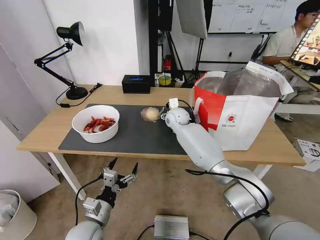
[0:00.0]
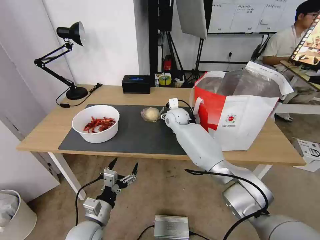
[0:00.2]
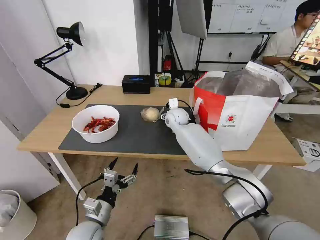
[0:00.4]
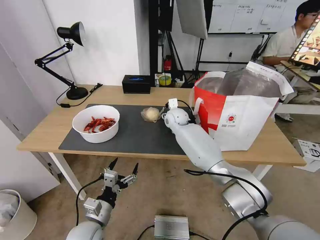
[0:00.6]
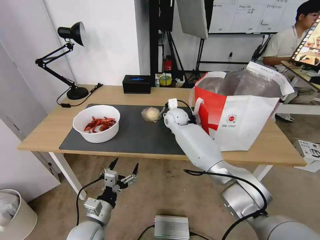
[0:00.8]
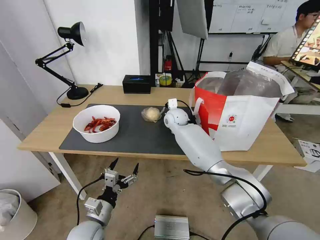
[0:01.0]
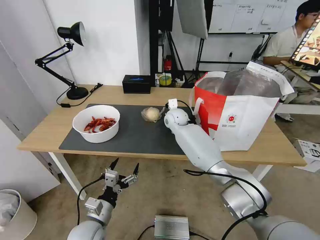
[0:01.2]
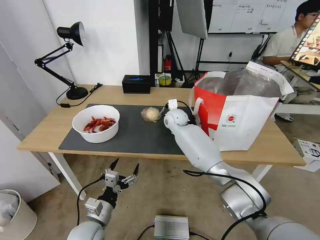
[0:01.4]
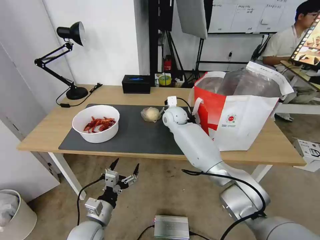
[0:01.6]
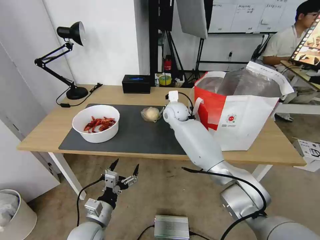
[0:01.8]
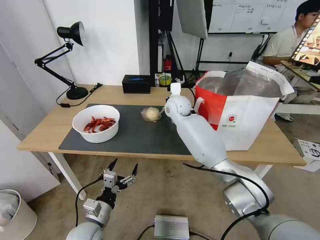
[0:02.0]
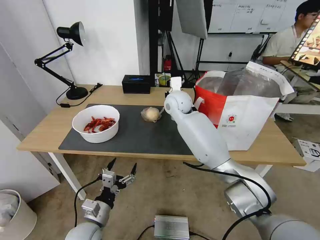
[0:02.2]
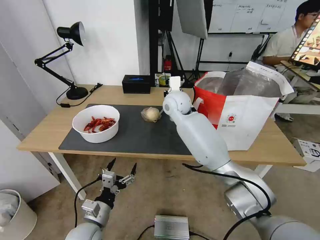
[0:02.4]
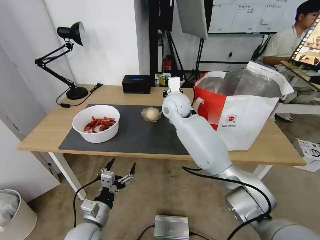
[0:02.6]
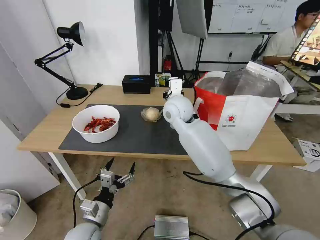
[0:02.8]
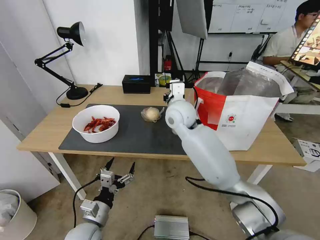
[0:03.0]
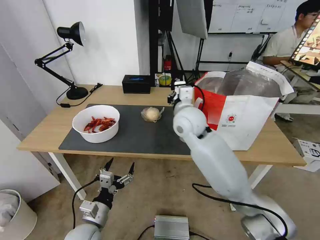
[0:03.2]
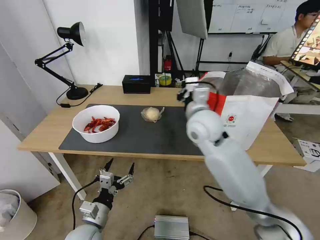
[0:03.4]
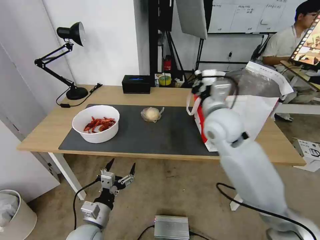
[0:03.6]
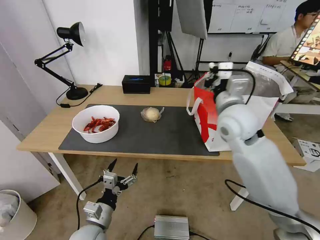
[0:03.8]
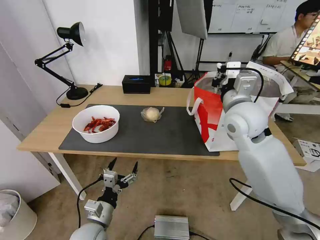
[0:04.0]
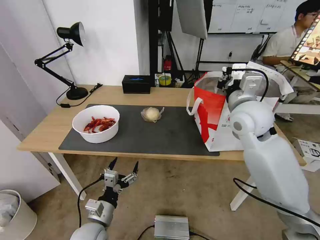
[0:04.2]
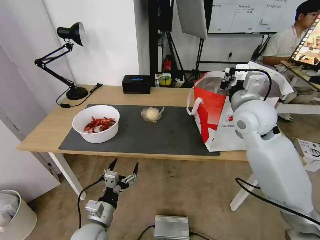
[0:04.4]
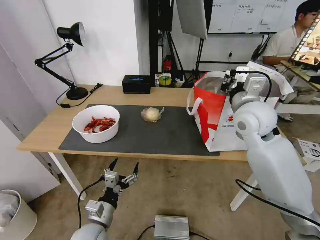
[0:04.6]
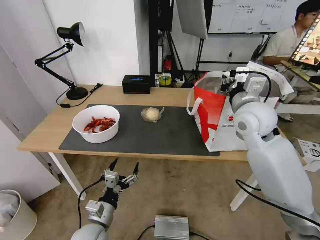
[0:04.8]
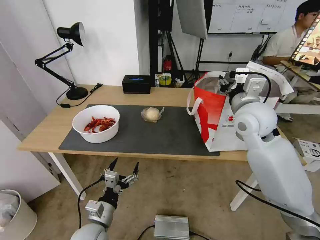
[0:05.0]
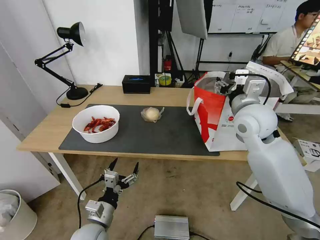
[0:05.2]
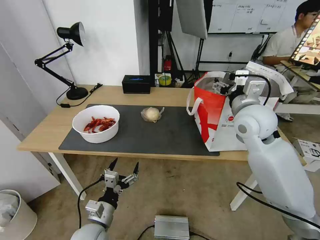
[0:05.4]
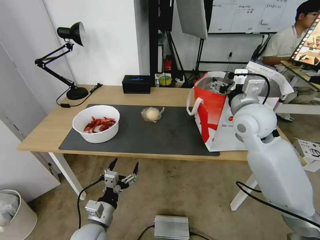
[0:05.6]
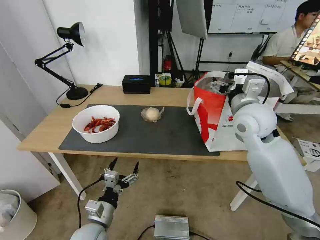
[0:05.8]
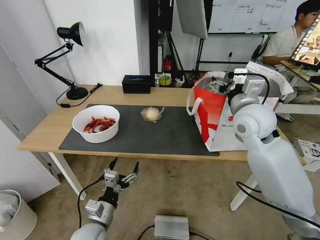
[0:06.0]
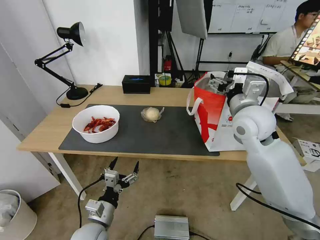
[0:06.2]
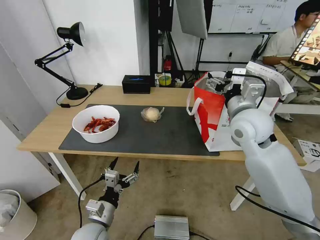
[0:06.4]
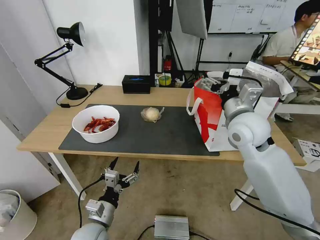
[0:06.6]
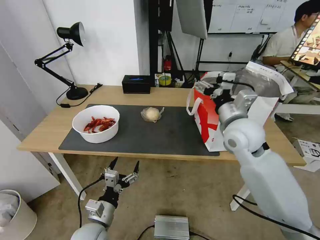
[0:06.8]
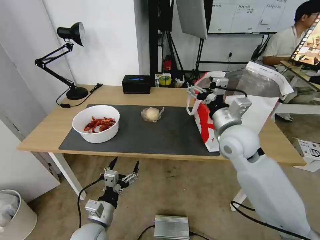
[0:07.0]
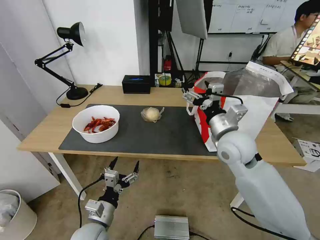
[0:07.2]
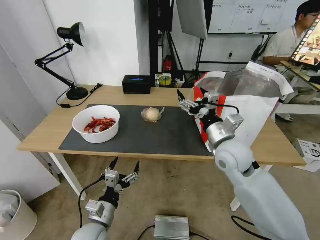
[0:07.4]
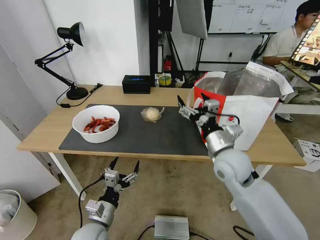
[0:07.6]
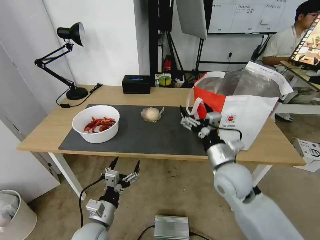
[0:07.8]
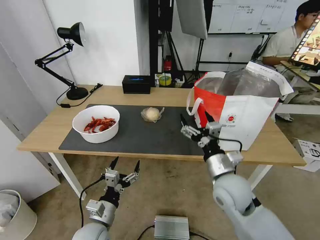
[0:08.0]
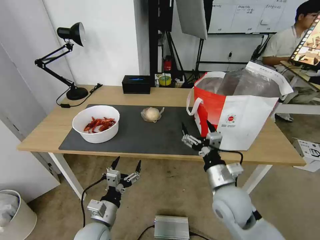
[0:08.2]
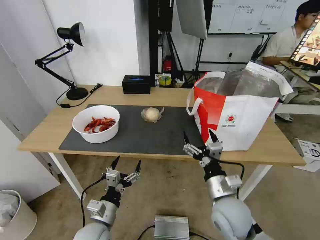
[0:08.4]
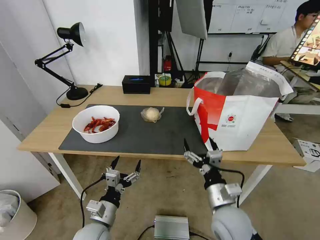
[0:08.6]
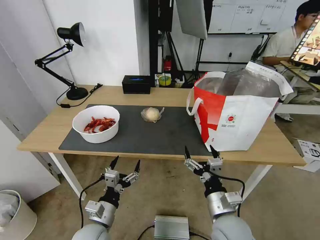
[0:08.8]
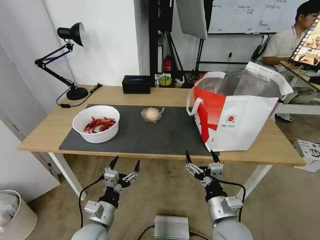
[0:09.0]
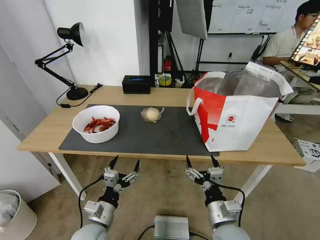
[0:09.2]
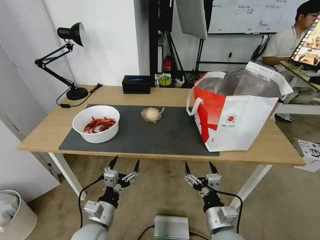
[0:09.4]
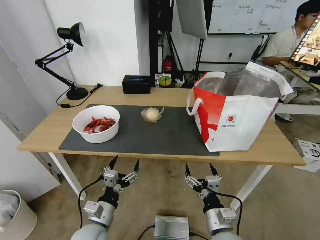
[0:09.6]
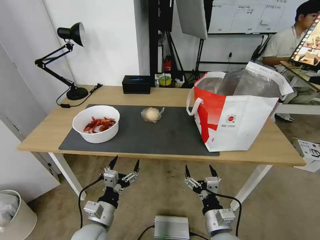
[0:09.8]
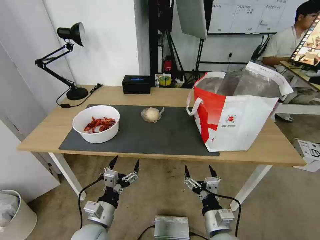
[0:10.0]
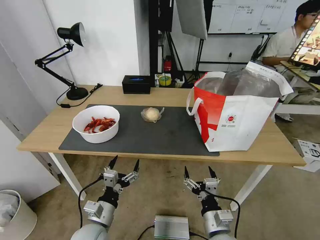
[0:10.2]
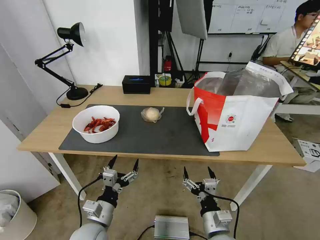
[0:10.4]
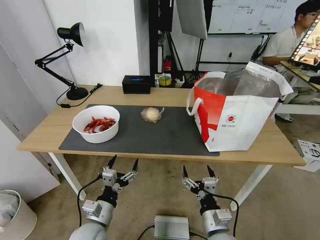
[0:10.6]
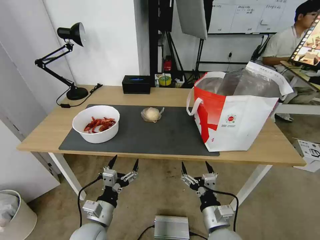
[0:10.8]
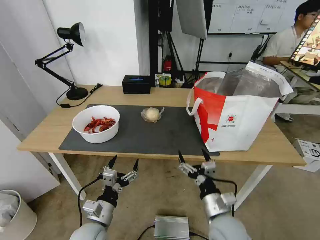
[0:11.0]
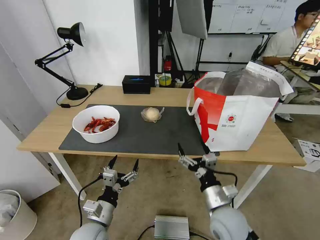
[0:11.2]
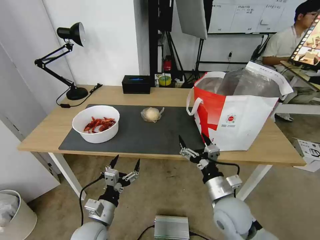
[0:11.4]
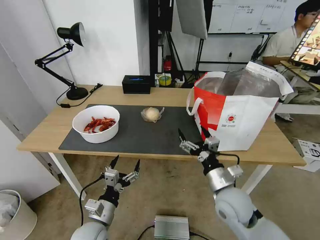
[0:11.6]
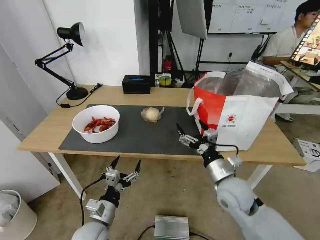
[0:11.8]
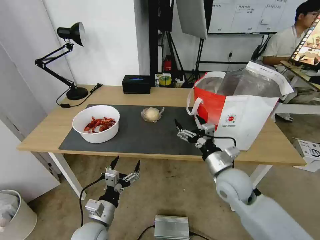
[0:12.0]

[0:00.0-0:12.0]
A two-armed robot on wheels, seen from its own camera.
Task of the whole recording: Pick up the trash from the table and place it into the takeout bag.
0:00.0 to 0:01.6: The right gripper closes.
0:01.6 to 0:03.0: The right gripper shifts approximately 15 cm backward and upward.
0:03.0 to 0:04.4: The right gripper shifts some 20 cm to the right.
0:04.4 to 0:06.0: The right gripper opens up.
0:06.0 to 0:07.6: The right gripper heads downward and backward, covering some 10 cm.
0:07.6 to 0:09.0: The right gripper moves backward and downward, some 20 cm.
0:09.0 to 0:10.4: The right gripper ends up about 5 cm from where it was.
0:10.4 to 0:12.0: The right gripper travels forward and upward by roughly 20 cm.

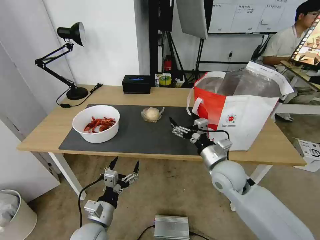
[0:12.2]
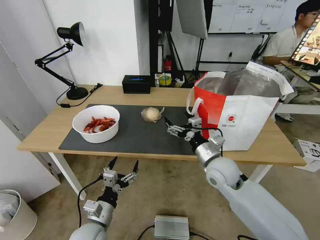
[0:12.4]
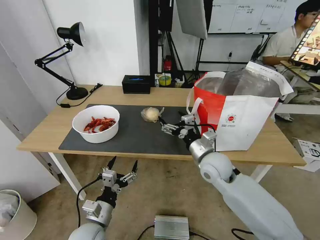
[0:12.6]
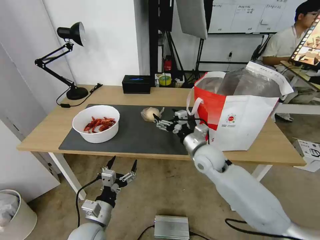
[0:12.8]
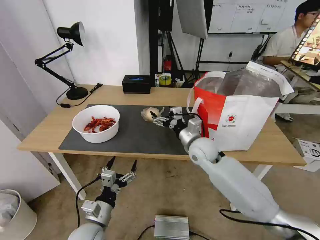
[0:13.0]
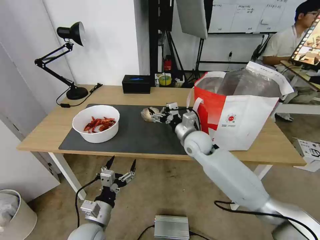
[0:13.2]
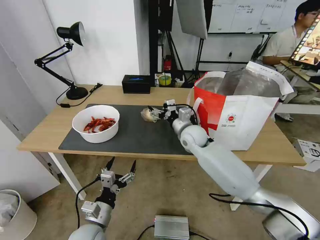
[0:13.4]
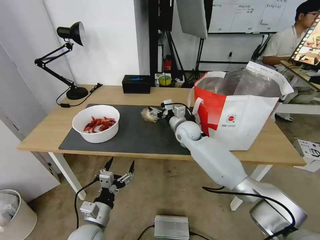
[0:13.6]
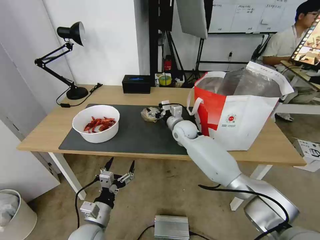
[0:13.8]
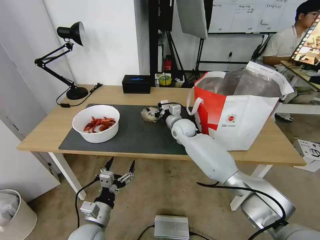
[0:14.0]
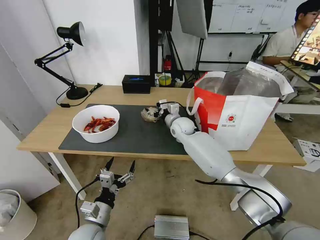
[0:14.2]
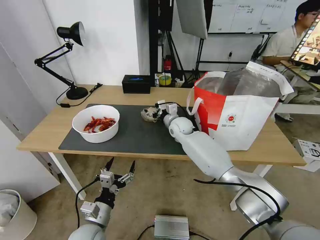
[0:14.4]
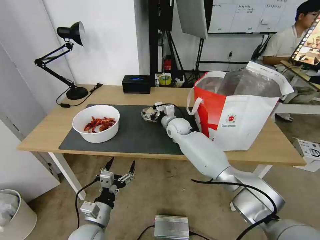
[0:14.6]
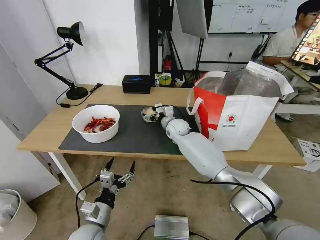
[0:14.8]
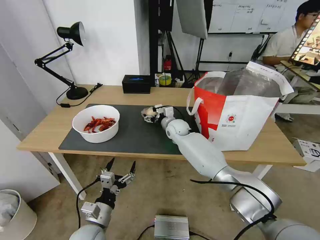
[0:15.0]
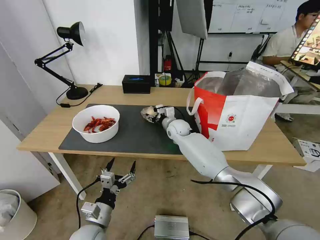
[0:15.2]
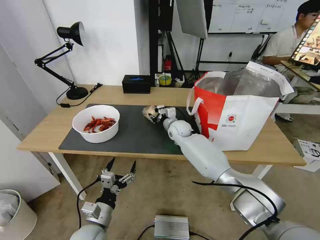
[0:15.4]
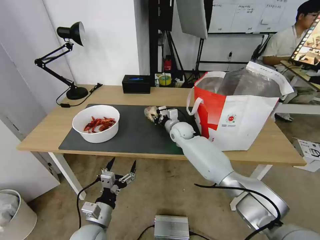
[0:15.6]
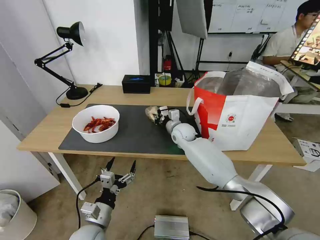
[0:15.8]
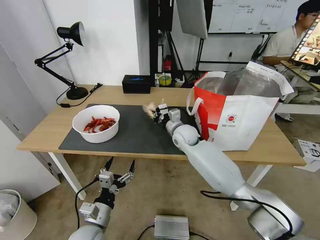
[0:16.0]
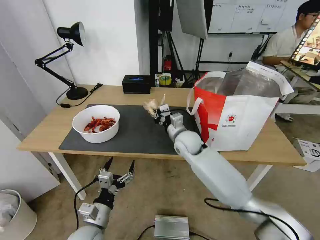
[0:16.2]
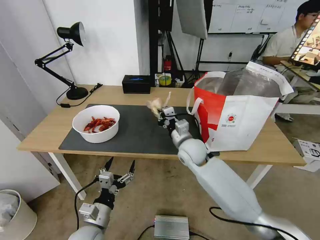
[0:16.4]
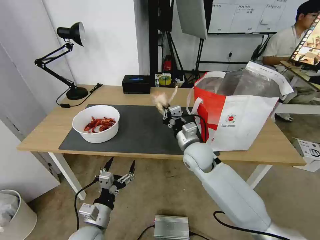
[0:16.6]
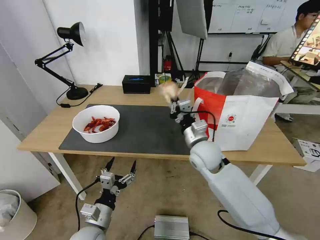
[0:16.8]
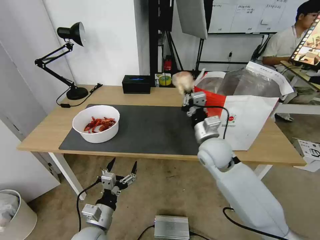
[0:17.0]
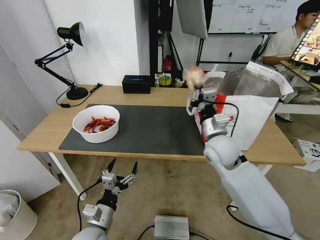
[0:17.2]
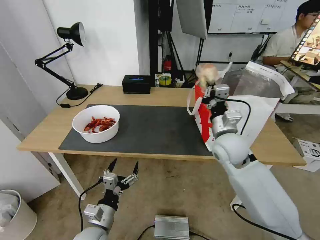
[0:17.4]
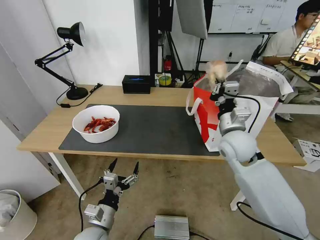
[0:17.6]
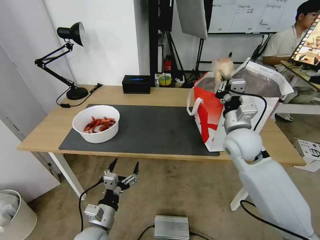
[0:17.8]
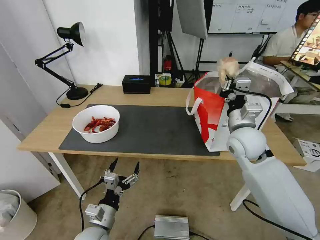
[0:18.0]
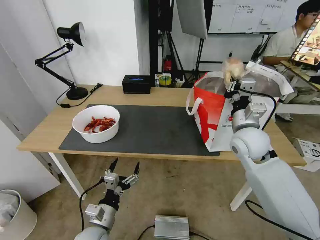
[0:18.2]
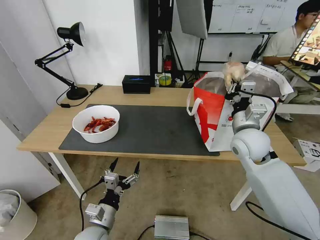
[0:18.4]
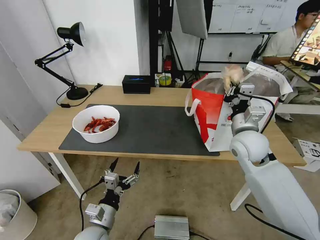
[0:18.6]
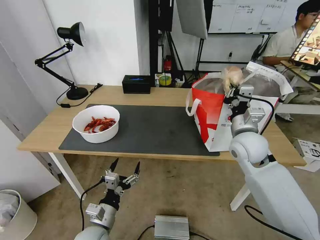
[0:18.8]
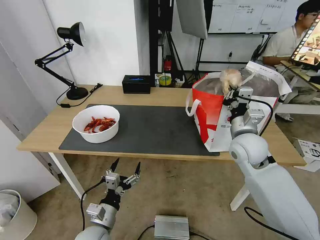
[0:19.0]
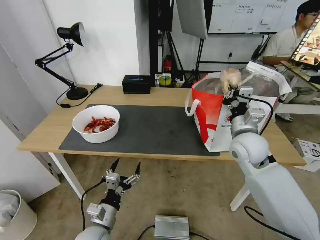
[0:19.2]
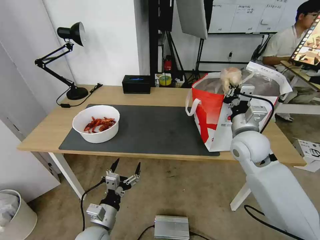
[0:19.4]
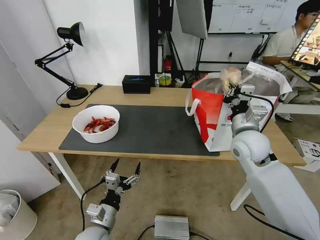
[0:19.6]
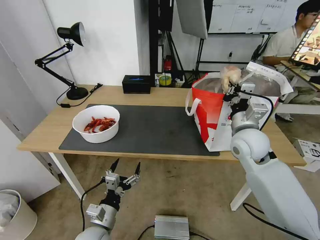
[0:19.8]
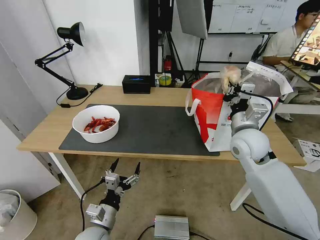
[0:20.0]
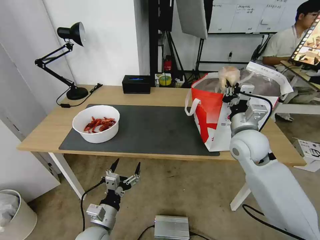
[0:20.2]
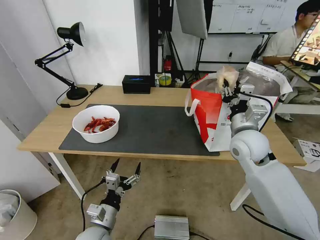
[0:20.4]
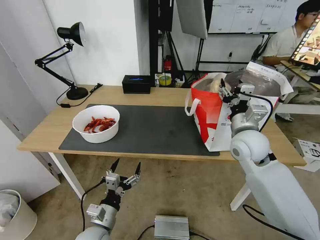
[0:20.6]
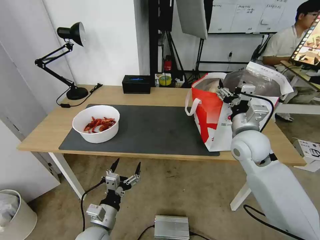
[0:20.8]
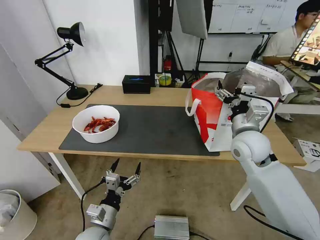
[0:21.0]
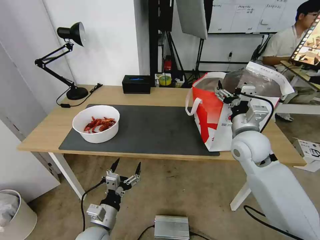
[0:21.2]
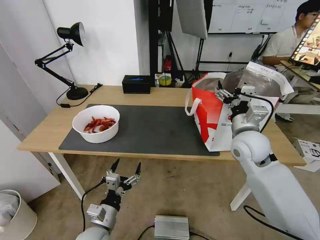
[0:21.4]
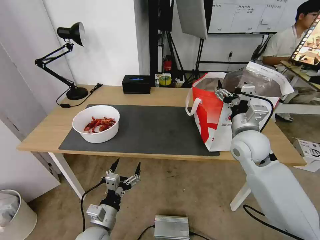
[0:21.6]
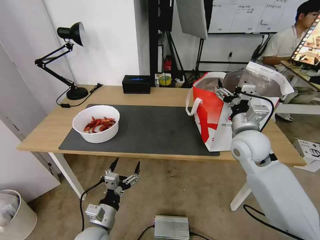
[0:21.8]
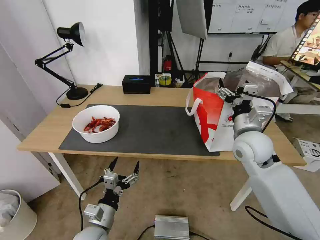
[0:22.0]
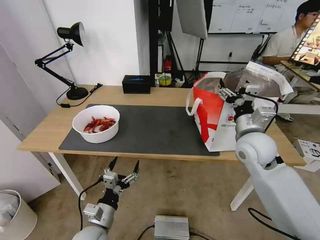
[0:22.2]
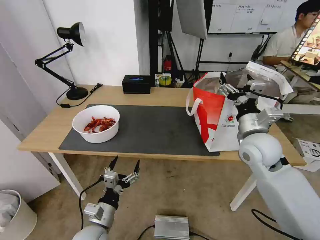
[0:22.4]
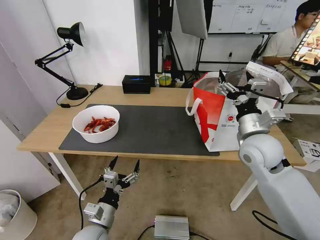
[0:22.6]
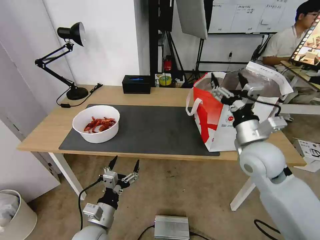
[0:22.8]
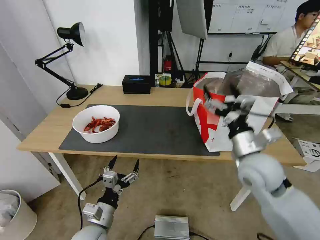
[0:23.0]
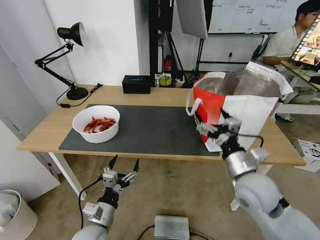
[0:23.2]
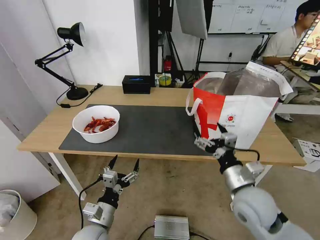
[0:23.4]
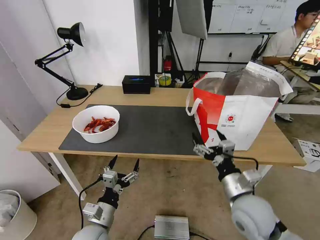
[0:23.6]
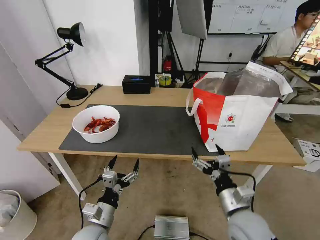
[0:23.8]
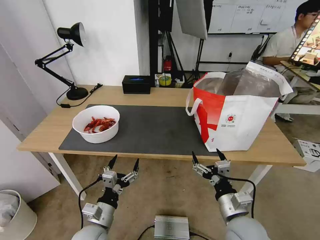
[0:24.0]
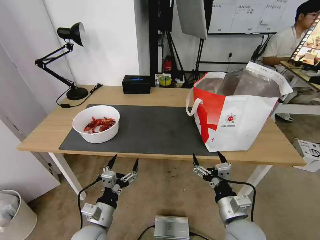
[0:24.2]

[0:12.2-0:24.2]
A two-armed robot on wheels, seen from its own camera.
Task of the whole recording: Pick up the trash from the table and place it into the takeout bag.
0:12.2 to 0:13.8: The right gripper heads forward and to the left, covering approximately 25 cm.
0:13.8 to 0:15.2: There are only small adjustments of the grippers.
0:15.2 to 0:16.6: The right gripper heads backward, covering roughly 15 cm, and closes up.
0:16.6 to 0:18.2: The right gripper is displaced to the right and upward by about 15 cm.
0:18.2 to 0:19.8: The grippers stay close to where they were, moving slightly.
0:19.8 to 0:21.2: The right gripper opens its fingers.
0:21.2 to 0:22.6: The grippers move only a little.
0:22.6 to 0:24.2: The right gripper travels backward and downward by roughly 25 cm.
